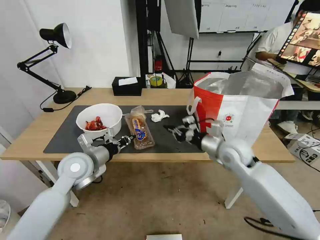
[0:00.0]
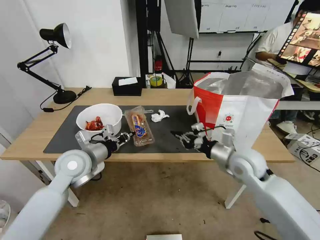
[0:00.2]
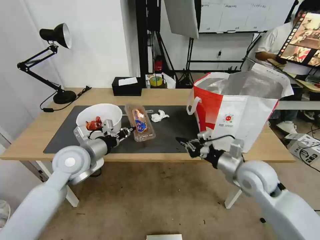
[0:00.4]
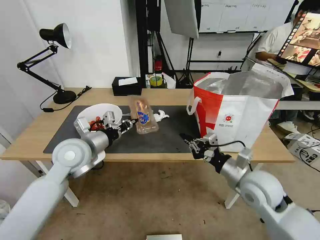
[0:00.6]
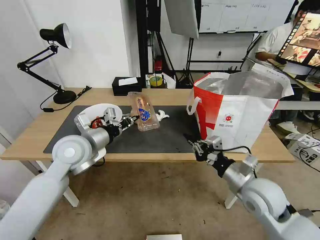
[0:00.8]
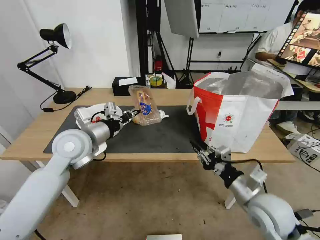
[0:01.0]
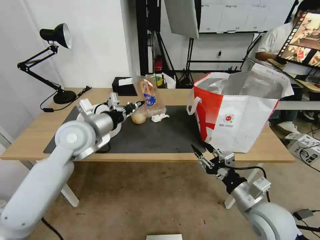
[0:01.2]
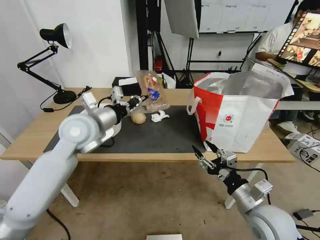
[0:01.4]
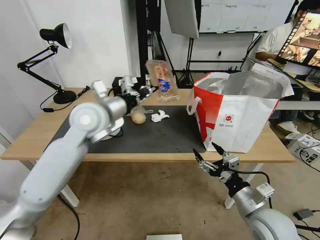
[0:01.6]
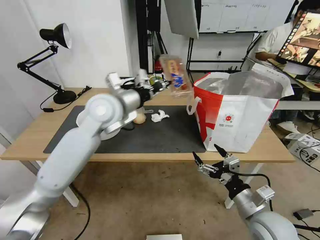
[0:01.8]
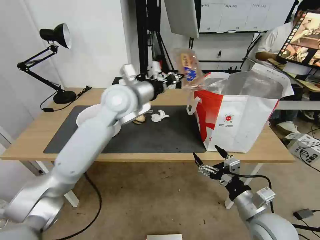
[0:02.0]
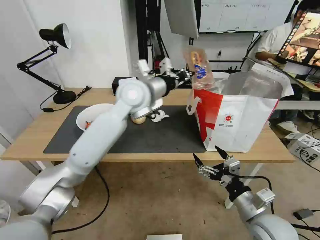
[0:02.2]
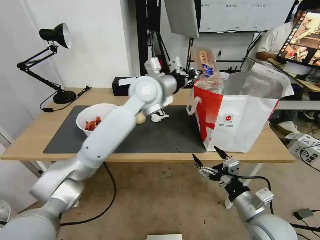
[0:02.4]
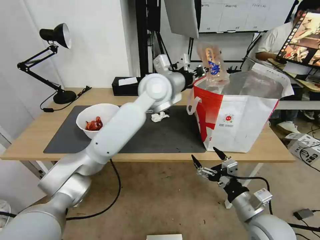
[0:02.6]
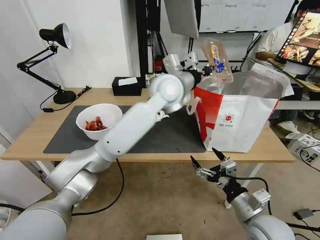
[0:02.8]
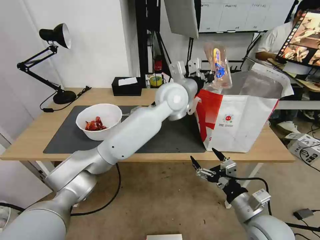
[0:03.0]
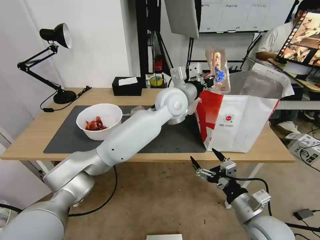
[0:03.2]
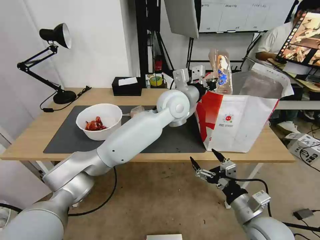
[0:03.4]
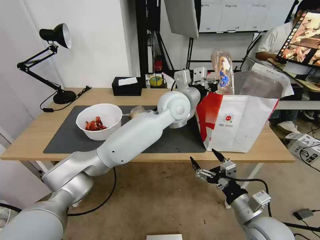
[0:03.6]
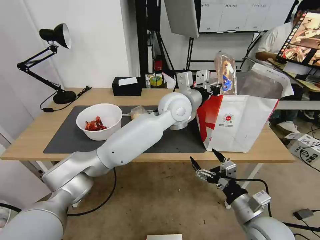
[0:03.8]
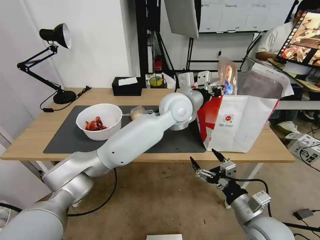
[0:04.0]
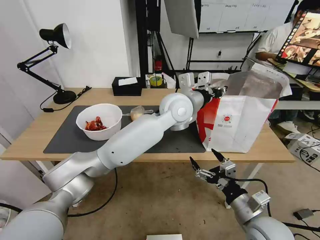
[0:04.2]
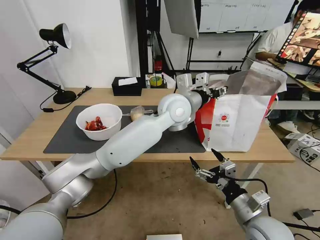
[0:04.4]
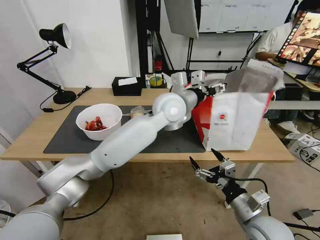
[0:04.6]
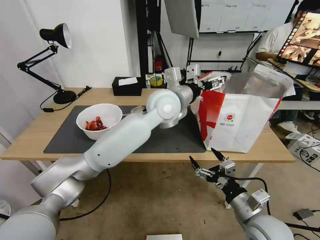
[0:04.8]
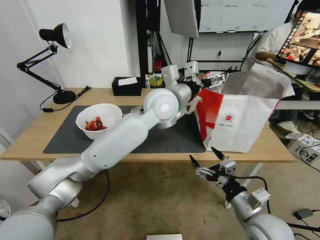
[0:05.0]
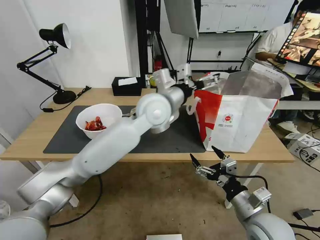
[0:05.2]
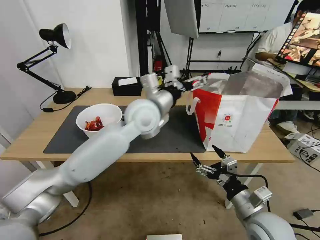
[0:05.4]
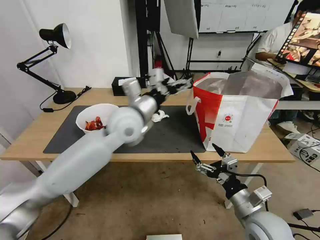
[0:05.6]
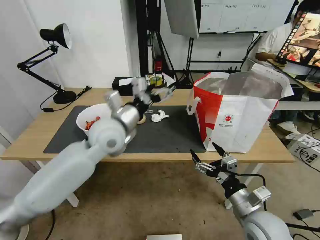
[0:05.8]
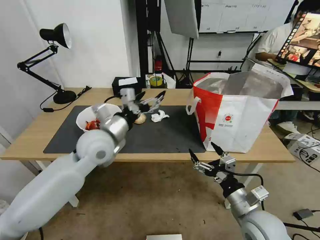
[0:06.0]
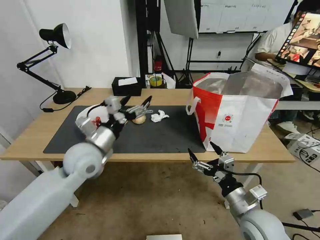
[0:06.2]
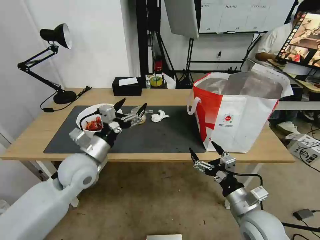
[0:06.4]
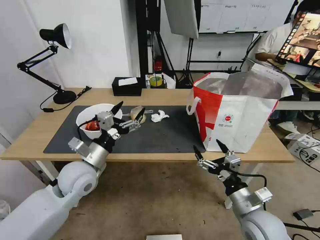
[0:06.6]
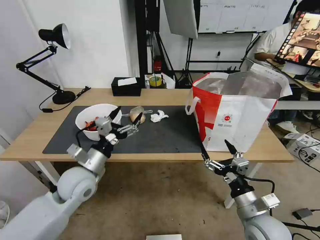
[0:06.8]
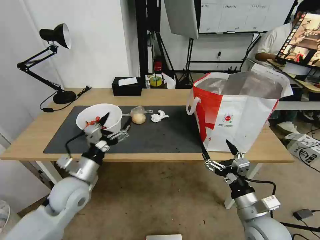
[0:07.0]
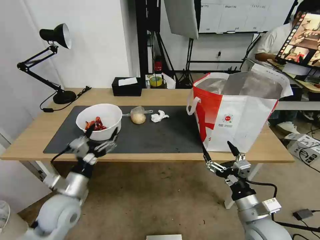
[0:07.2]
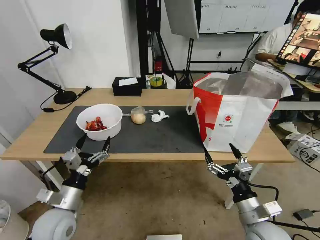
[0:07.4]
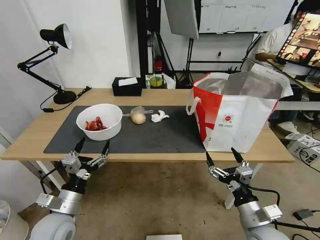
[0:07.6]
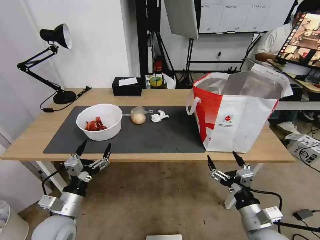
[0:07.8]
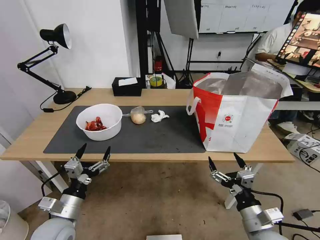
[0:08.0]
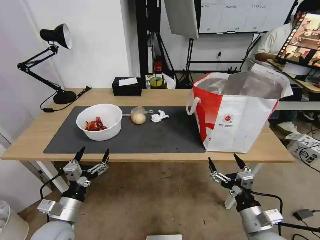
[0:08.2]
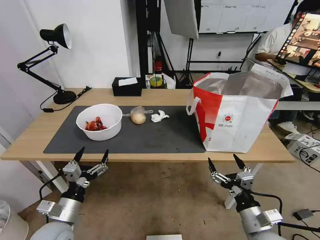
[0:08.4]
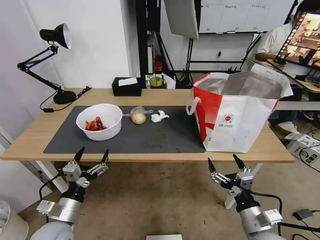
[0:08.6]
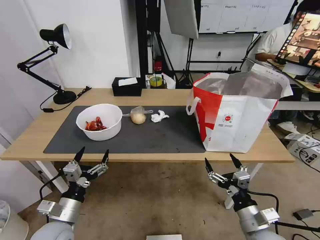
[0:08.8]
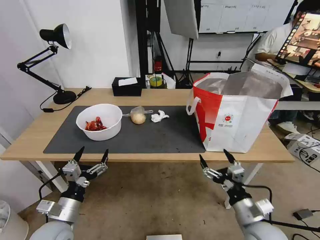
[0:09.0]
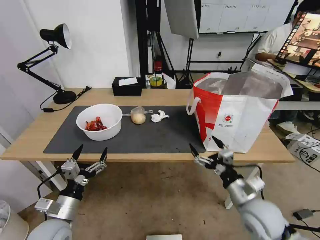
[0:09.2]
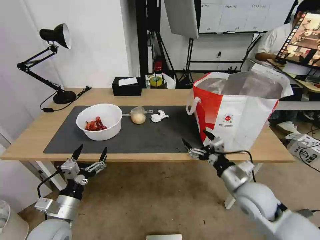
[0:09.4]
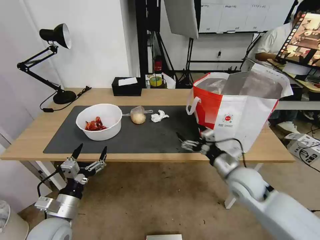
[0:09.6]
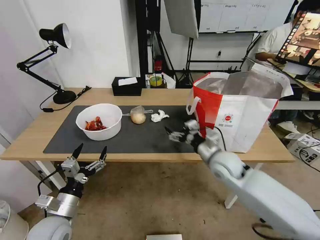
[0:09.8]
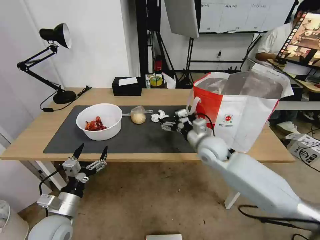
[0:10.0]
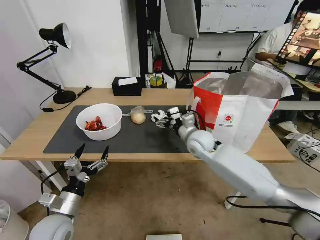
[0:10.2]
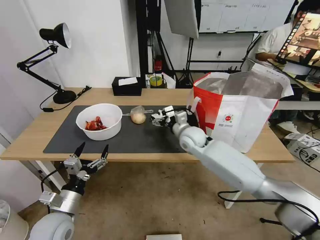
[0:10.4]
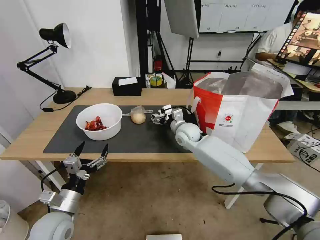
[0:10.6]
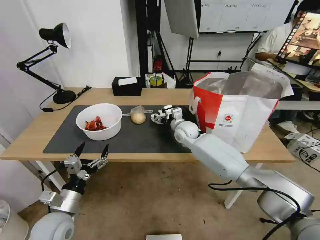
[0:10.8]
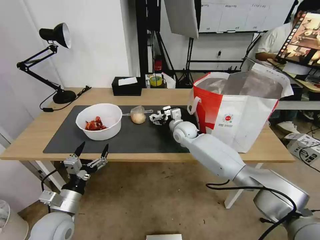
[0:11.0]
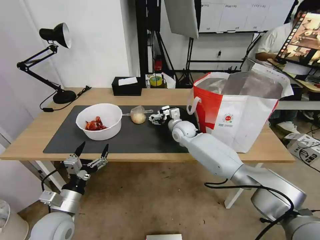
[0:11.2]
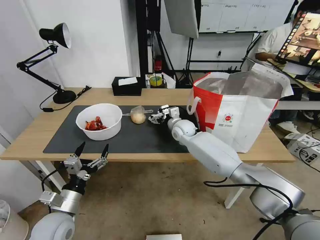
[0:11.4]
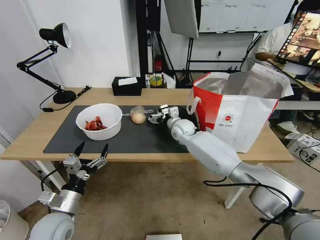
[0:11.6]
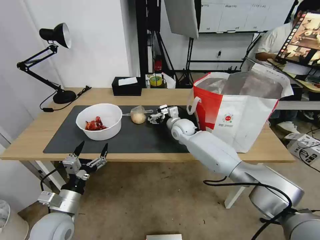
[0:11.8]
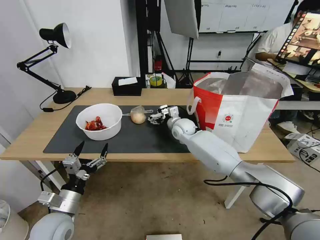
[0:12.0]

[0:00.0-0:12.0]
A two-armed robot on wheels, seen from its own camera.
Task of the whole recording: Pick up the trash from the table and place it into the takeout bag.
0:00.0 to 0:01.6: The left gripper is displaced upward, forward and to the right by approximately 15 cm, while the right gripper shifts approximately 20 cm backward, and opens up.
0:01.6 to 0:03.0: The left gripper shifts roughly 20 cm to the right.
0:03.0 to 0:04.4: The left gripper opens up.
0:04.4 to 0:06.0: The left gripper moves to the left and backward, some 25 cm, and opens up.
0:06.0 to 0:07.6: The left gripper shifts approximately 25 cm downward, backward and to the left.
0:07.6 to 0:09.0: The grippers make only small movements.
0:09.0 to 0:10.4: The right gripper is displaced forward and to the left by about 35 cm.
0:10.4 to 0:12.0: The right gripper shifts some 5 cm forward.

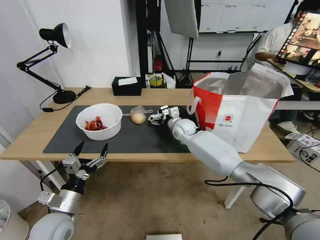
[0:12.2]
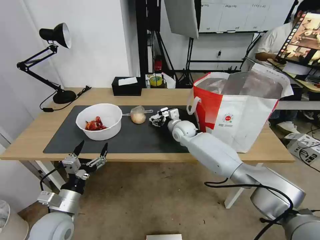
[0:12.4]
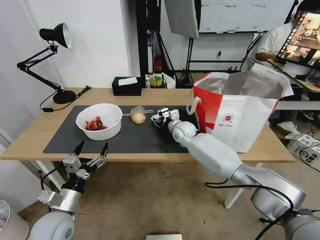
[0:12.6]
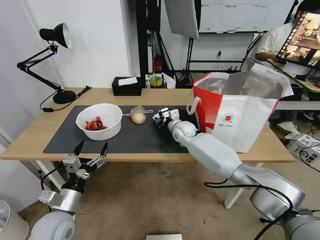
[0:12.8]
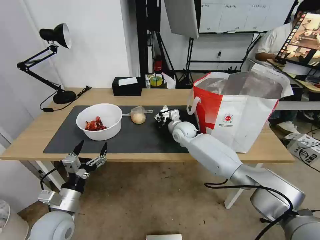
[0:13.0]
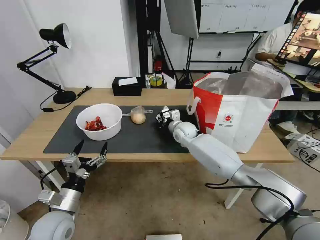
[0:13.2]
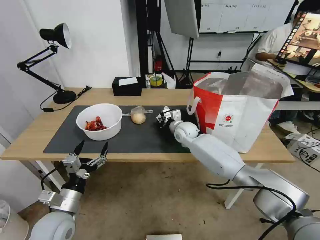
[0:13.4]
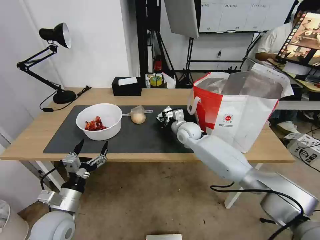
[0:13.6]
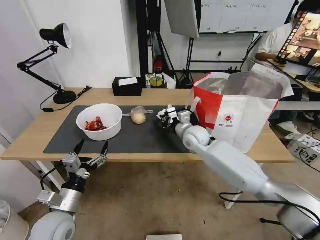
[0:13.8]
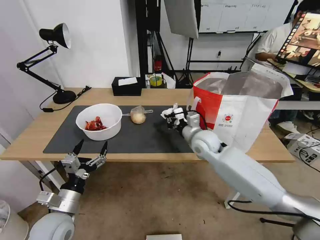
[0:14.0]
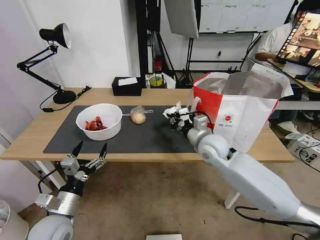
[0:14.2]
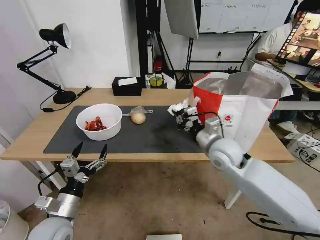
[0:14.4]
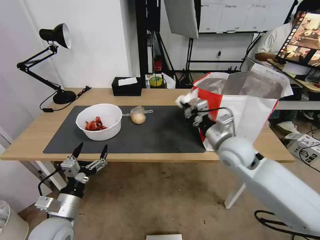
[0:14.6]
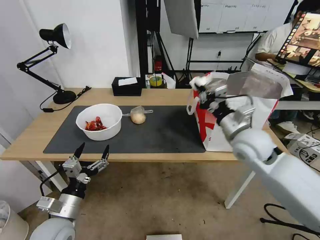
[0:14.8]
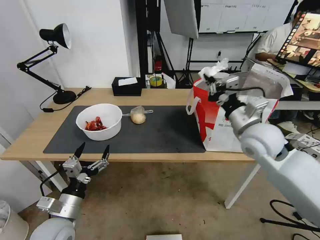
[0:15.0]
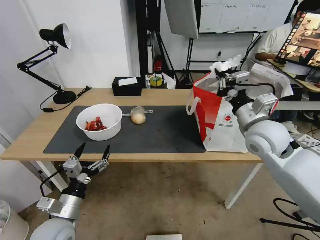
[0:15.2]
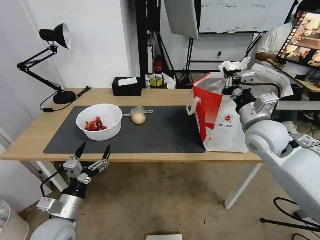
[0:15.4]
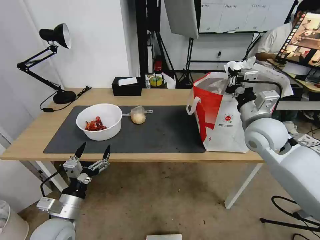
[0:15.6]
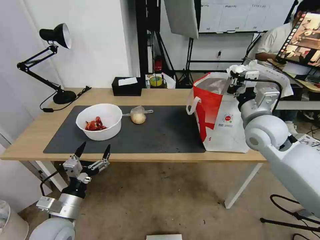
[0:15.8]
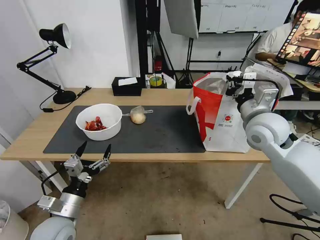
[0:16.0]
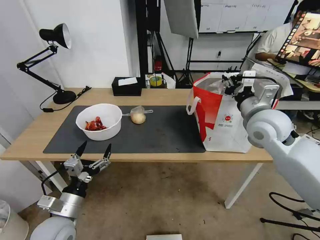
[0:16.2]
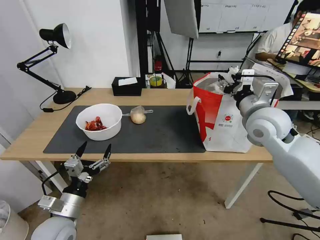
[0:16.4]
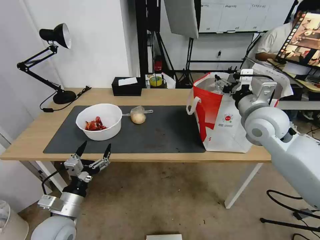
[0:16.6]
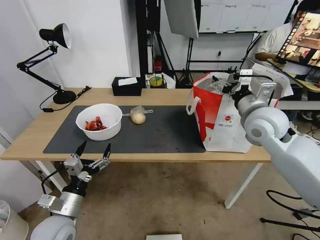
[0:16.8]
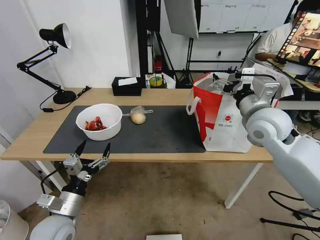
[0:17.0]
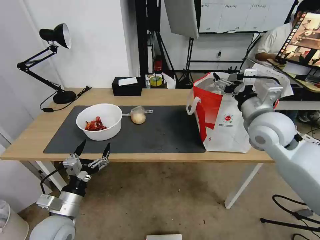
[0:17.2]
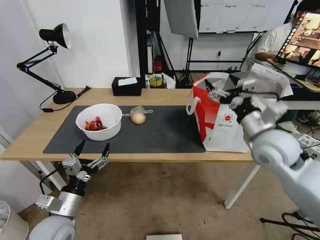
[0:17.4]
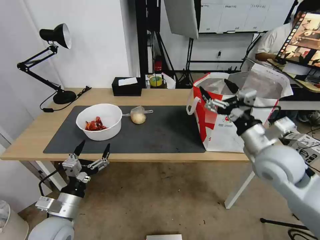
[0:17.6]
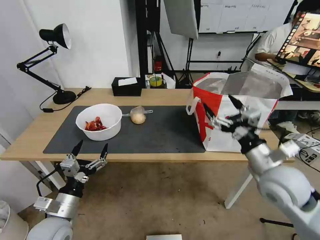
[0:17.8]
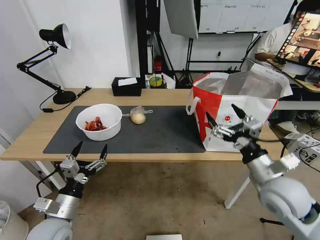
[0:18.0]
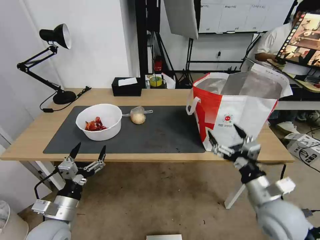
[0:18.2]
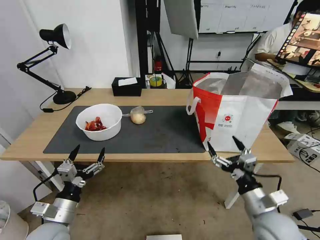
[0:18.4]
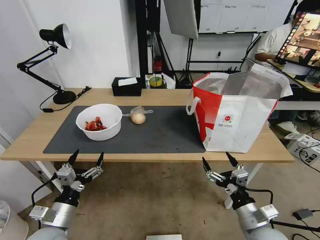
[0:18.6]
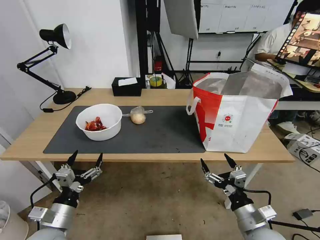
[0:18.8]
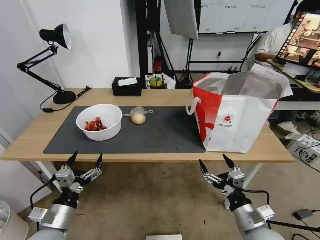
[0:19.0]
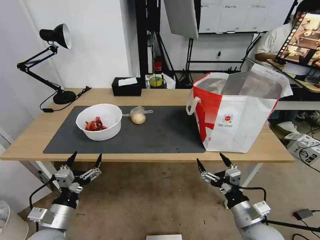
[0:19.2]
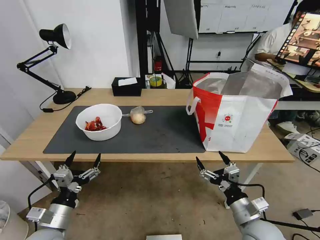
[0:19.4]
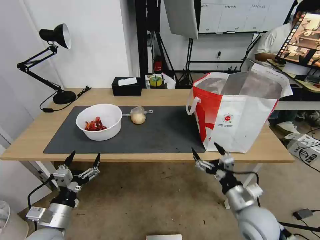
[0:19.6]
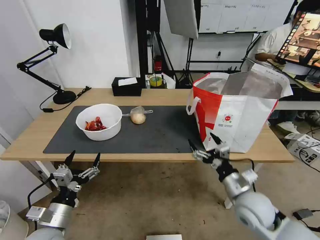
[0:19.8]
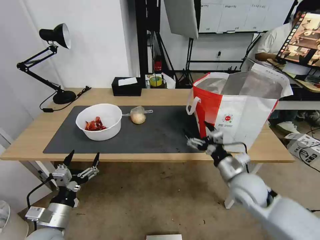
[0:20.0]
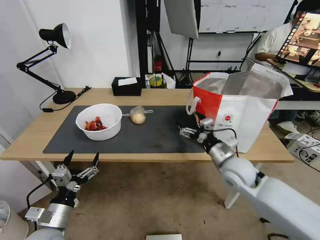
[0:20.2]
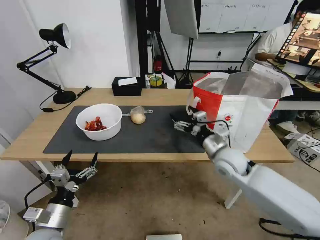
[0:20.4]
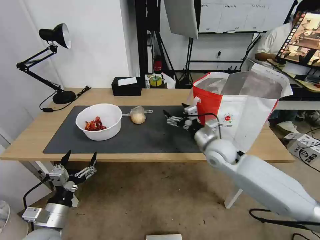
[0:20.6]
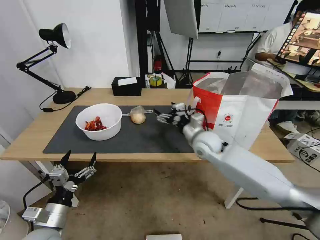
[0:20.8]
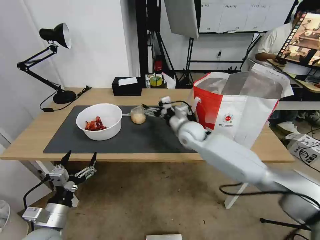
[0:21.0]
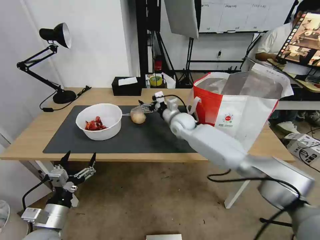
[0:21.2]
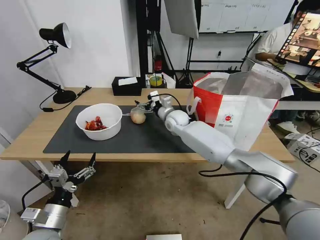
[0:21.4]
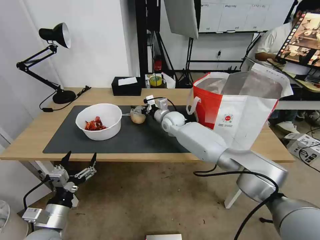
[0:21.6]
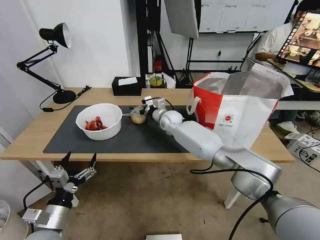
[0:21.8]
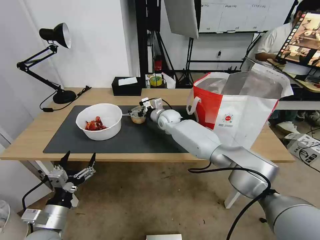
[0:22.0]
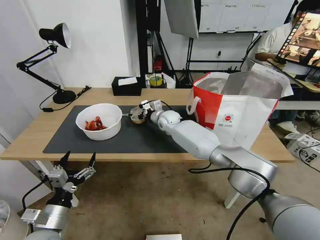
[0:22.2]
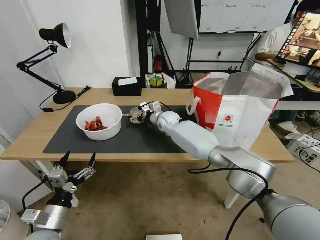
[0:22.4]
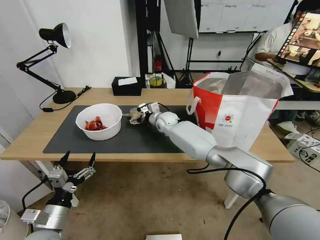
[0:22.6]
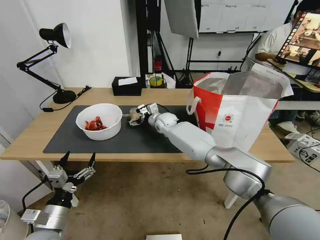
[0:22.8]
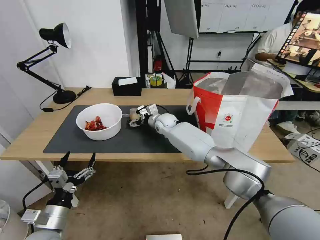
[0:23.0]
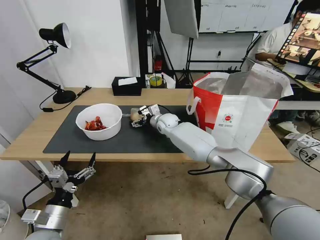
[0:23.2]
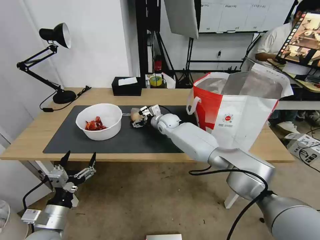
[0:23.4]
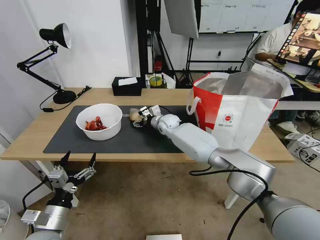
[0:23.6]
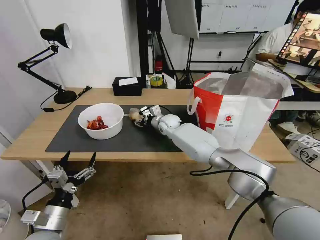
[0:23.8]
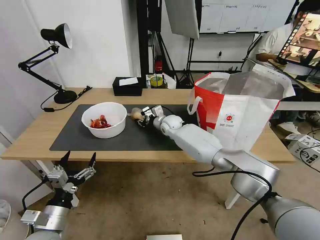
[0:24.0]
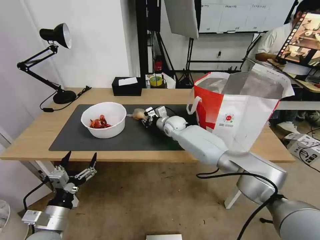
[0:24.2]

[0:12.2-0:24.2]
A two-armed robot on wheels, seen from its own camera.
Task of the whole recording: Pick up the trash from the table and place it into the takeout bag.
0:12.2 to 0:13.8: The right gripper moves backward, about 5 cm, and closes its fingers.
0:13.8 to 0:15.2: The right gripper is displaced to the right, upward and backward by some 25 cm.
0:15.2 to 0:16.6: The right gripper opens up.
0:16.6 to 0:18.2: The right gripper moves backward and downward, roughly 25 cm.
0:18.2 to 0:19.8: The right gripper travels backward and back again, some 5 cm each way.
0:19.8 to 0:21.2: The right gripper goes some 35 cm forward and to the left.
0:21.2 to 0:22.6: The right gripper goes roughly 5 cm to the left.
0:22.6 to 0:24.2: The right gripper closes up.
